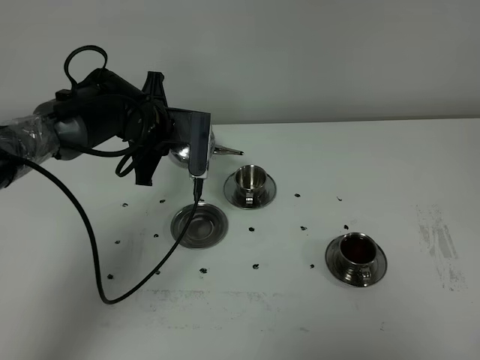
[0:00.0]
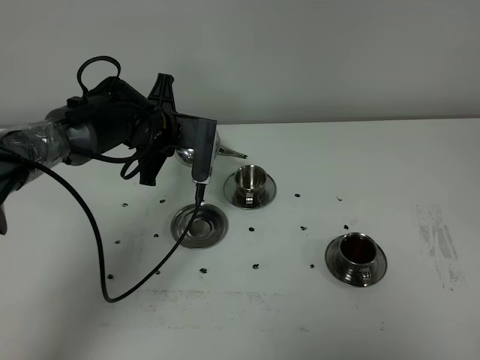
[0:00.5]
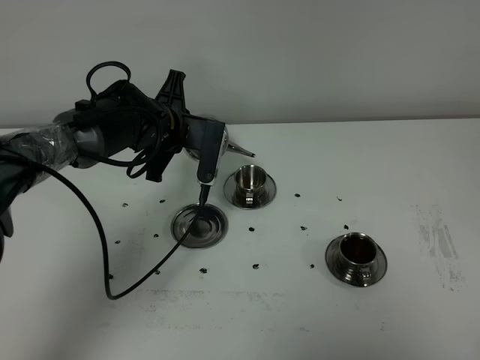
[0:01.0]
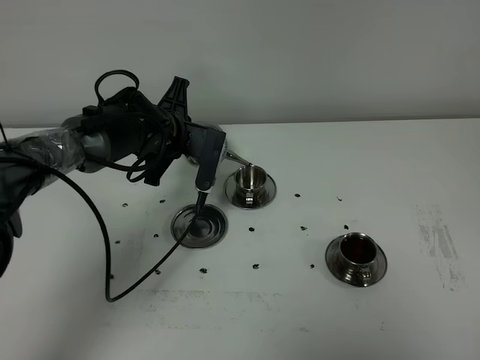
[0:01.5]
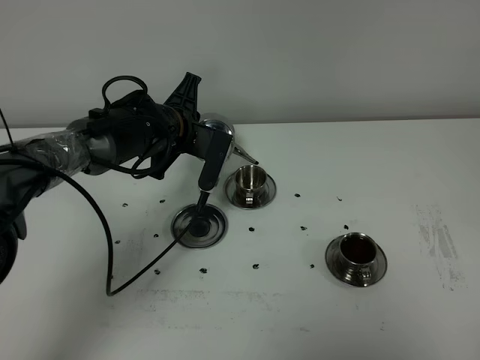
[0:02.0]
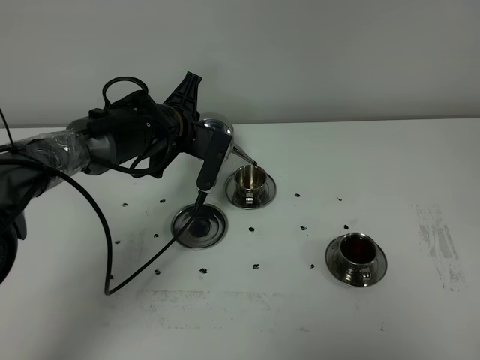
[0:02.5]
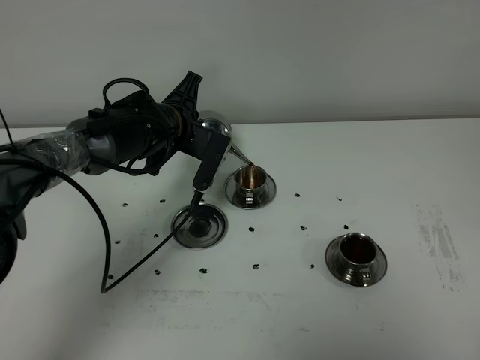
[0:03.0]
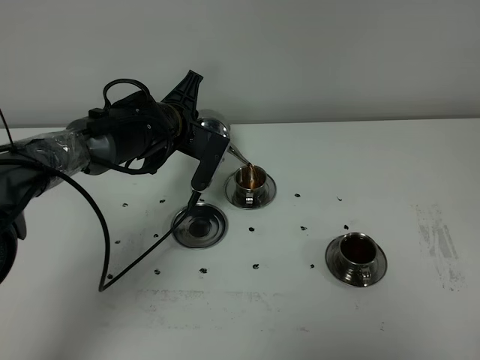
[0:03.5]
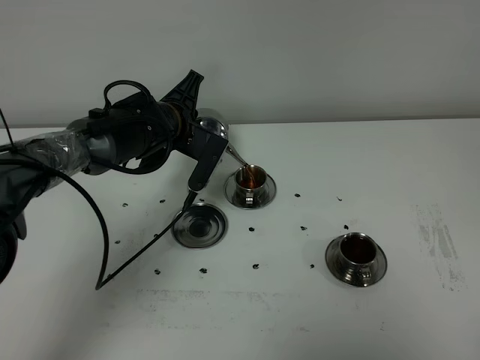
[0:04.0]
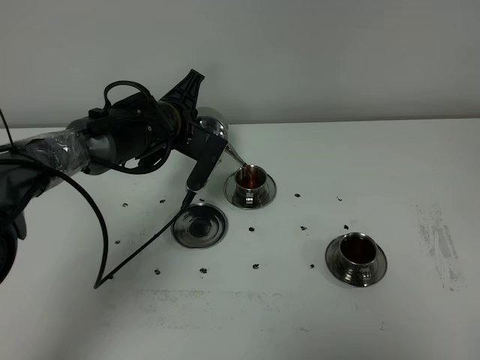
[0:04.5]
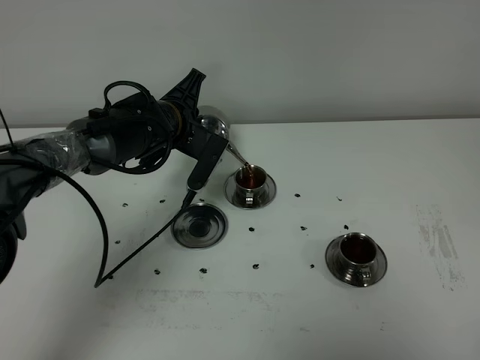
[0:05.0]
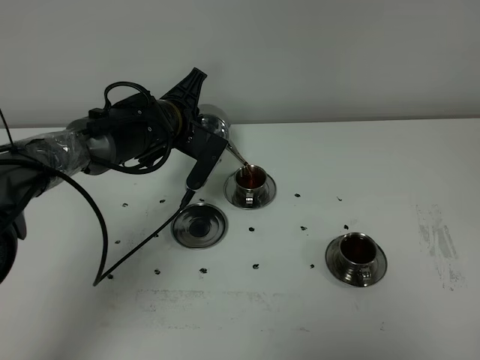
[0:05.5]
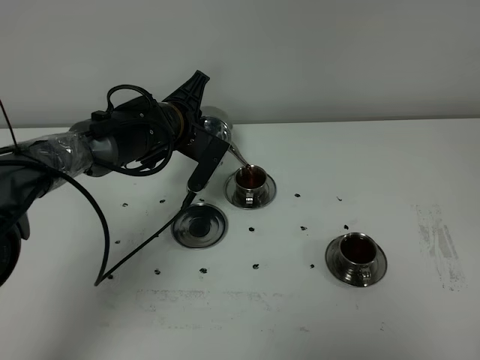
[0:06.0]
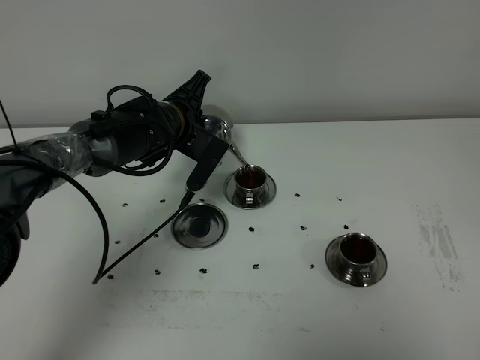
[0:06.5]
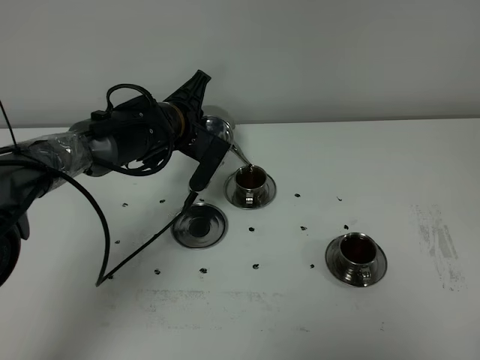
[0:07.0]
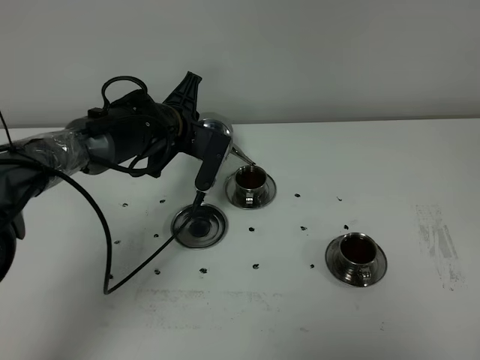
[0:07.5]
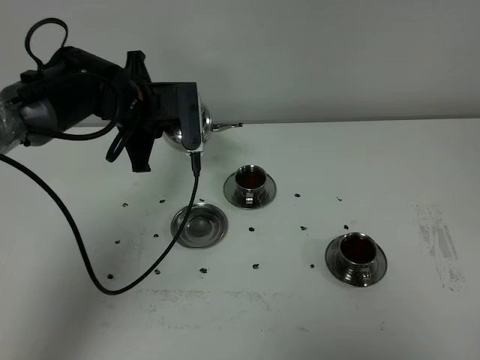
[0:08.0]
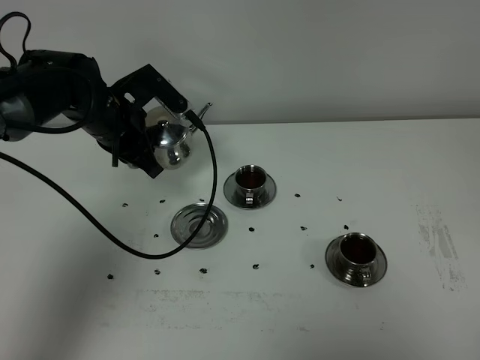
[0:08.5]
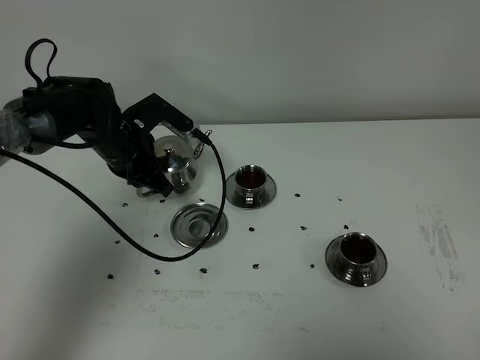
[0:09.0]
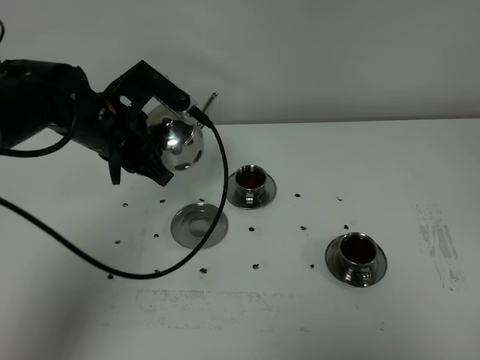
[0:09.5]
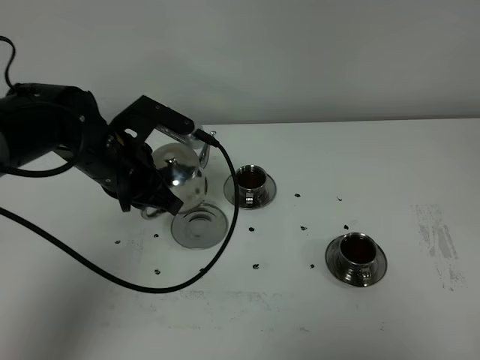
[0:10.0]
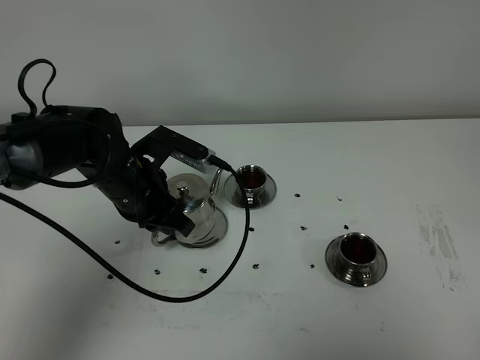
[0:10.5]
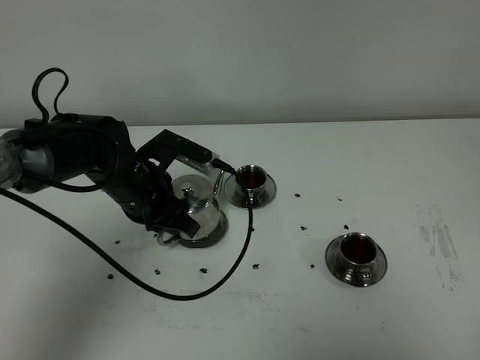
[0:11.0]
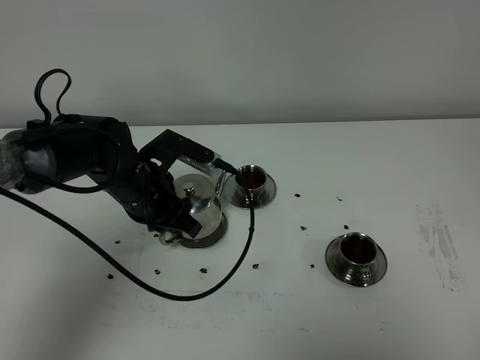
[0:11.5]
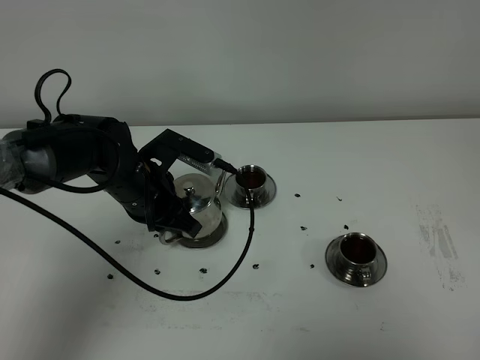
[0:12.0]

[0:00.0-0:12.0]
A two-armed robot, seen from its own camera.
Task of the whole recording: grasp the stainless steel teapot and pour the tea into the two stainless steel teacups one by one, put the stainless steel teapot back in its original place.
Step, 0:00.0 to 0:07.5: Pour tea into the teacup with the left gripper.
0:00.0 to 0:02.0: There are only small adjustments of the grippers.
0:02.0 to 0:04.0: The grippers stay close to where they were, moving slightly.
0:04.0 to 0:06.0: The two grippers keep their place.
0:06.0 to 0:08.0: The left gripper goes about 5 cm upward.
0:08.0 to 0:10.0: The left gripper moves backward, roughly 10 cm.
0:10.0 to 0:12.0: The grippers stay close to where they were, moving slightly.

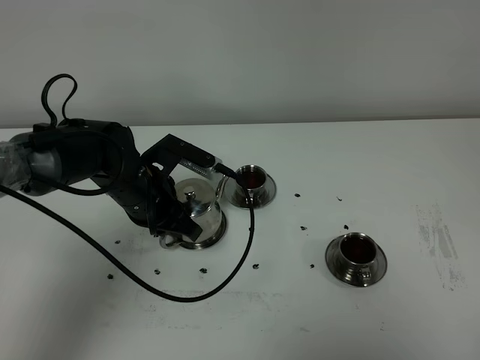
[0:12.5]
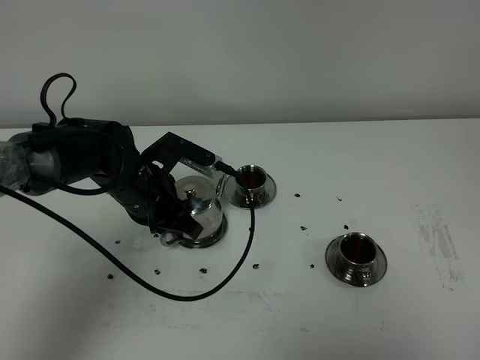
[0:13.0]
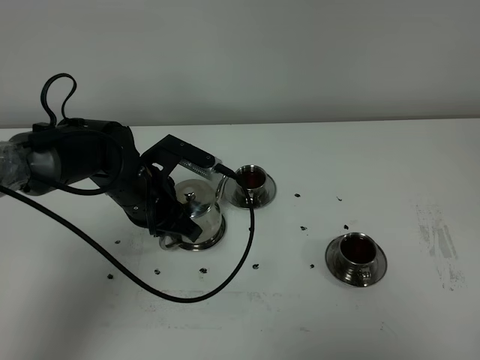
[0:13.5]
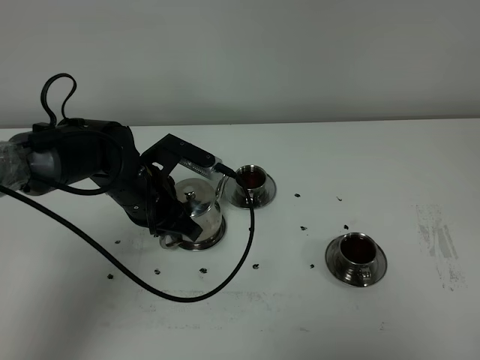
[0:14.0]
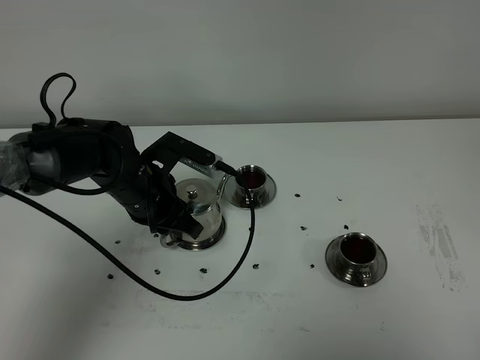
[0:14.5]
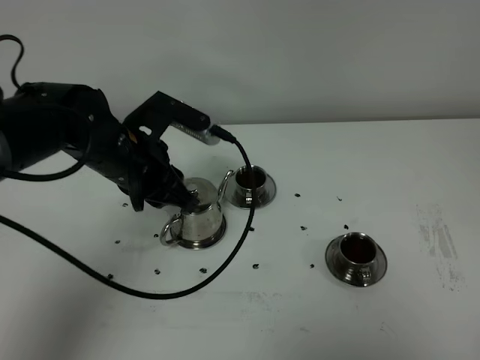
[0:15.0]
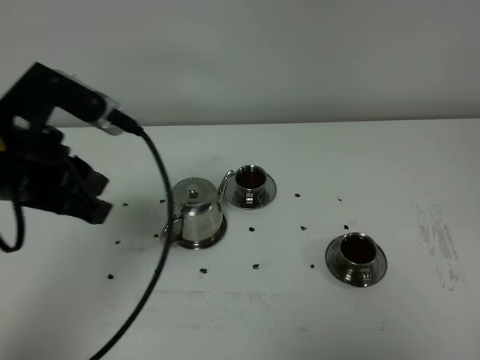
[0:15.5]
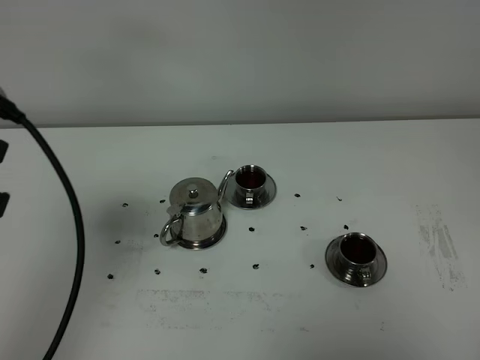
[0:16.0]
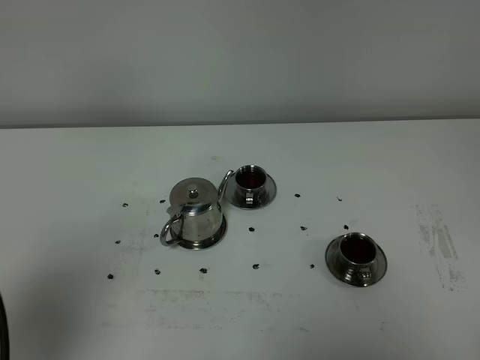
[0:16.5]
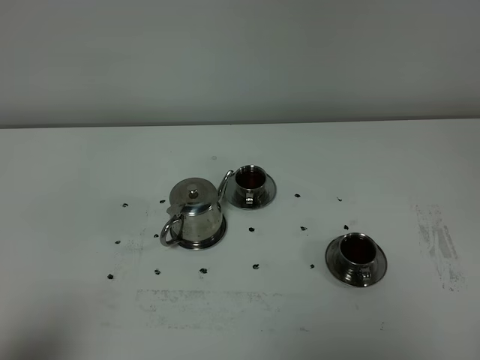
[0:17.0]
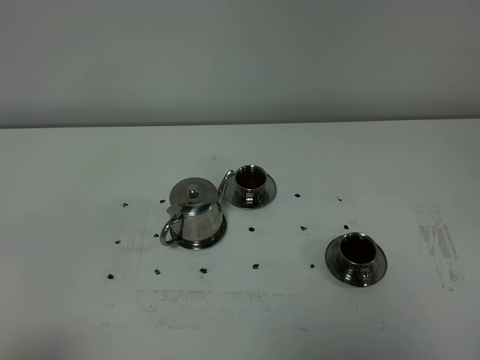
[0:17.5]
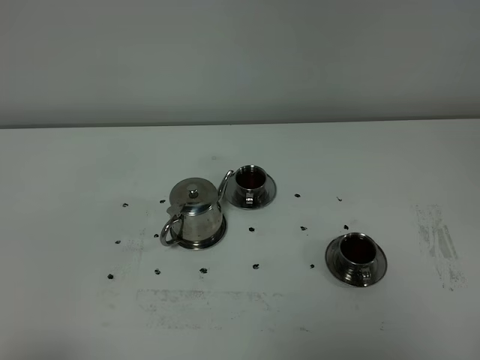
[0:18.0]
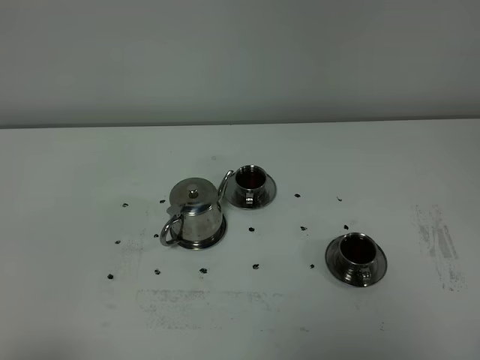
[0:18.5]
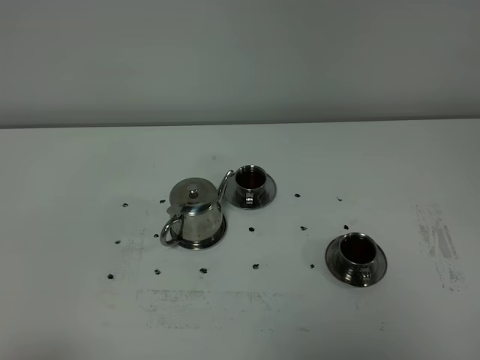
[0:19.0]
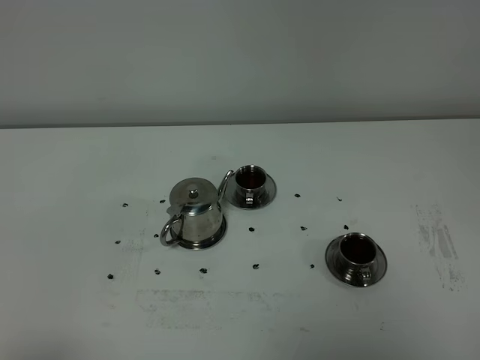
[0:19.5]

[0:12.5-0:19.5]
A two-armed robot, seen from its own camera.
Task of the whole recording: grasp the stainless steel teapot and pour the tea into the two stainless steel teacups one by one, put the stainless steel teapot back in its original place.
0:12.5 to 0:14.5: The two grippers keep their place.
0:14.5 to 0:16.0: The left gripper moves upward, backward and to the left, roughly 30 cm.
0:16.0 to 0:17.5: The left gripper shifts about 20 cm backward and downward.
